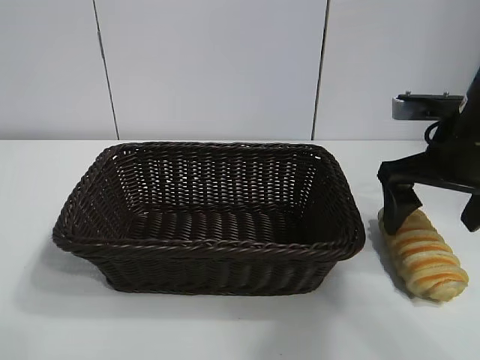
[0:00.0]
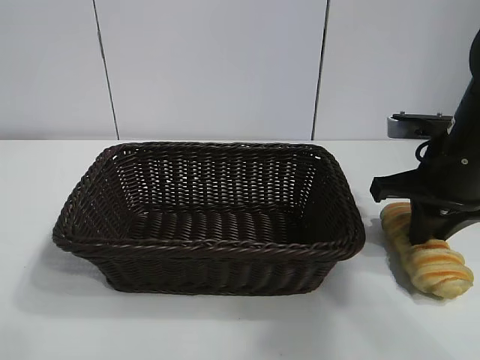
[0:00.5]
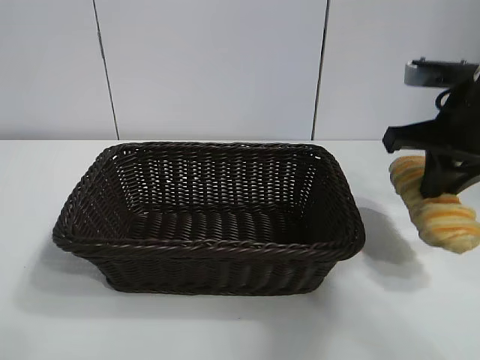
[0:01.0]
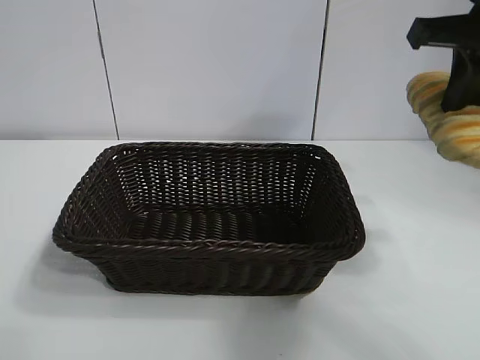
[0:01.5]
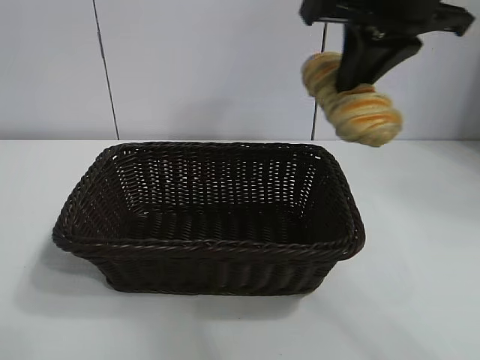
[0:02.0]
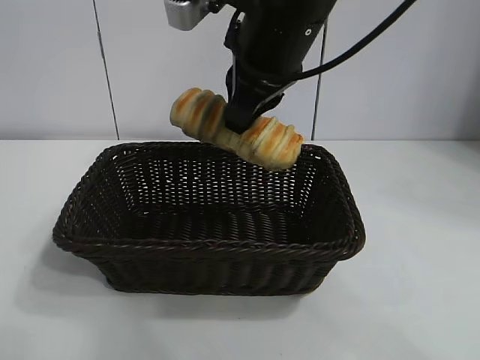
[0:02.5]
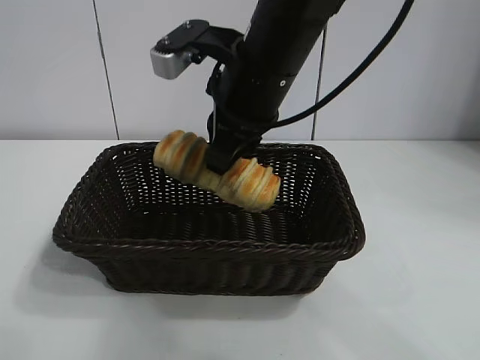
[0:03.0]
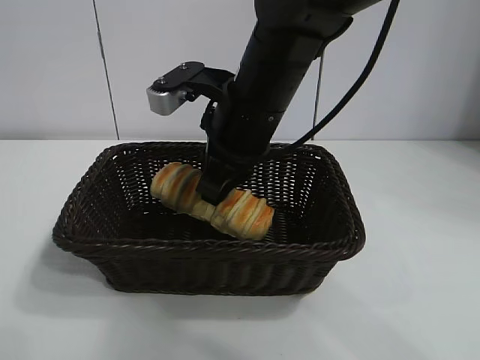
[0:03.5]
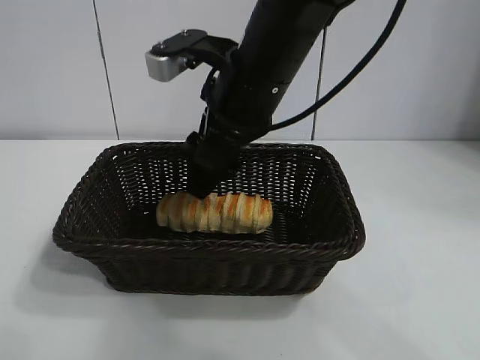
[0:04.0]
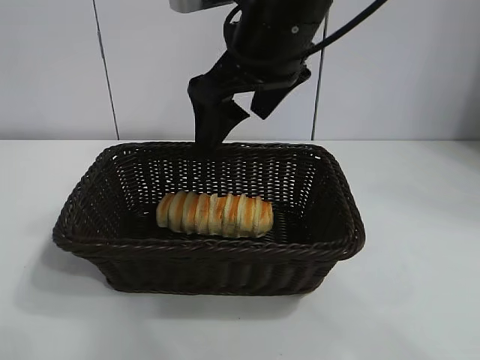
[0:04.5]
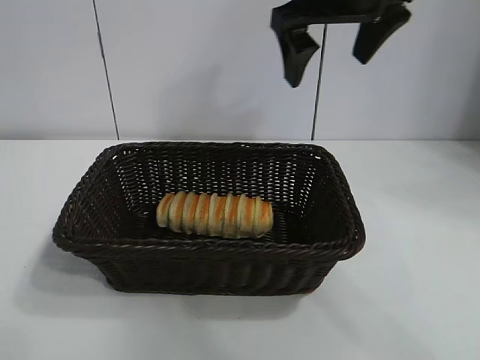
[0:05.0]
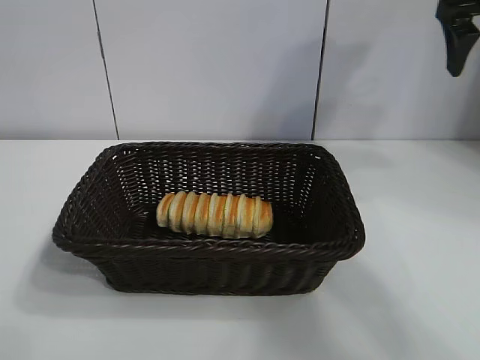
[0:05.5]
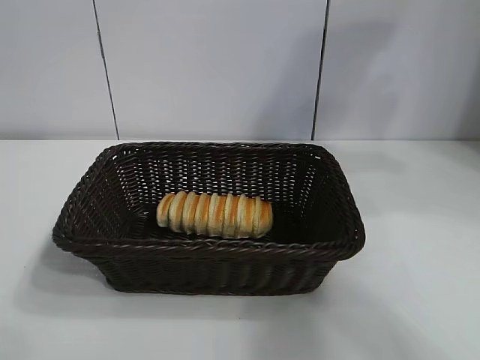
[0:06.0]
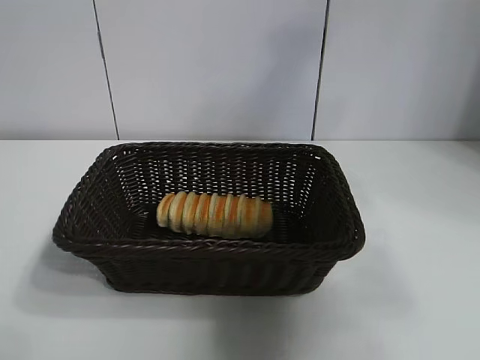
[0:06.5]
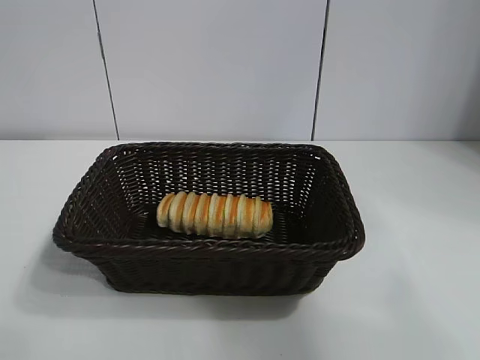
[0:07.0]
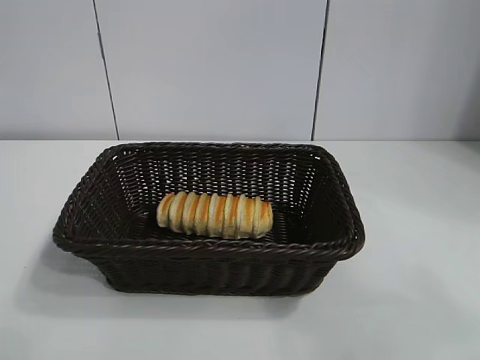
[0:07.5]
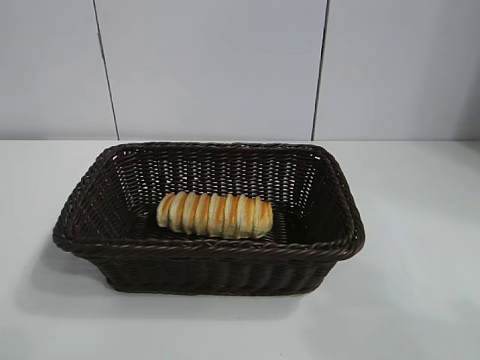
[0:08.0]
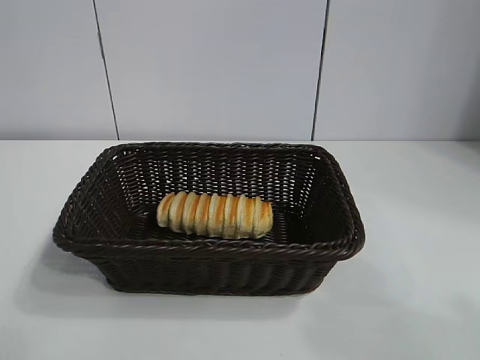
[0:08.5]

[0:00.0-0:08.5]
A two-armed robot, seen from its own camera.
Task of the whole recording: pick up the long bread and put it into the basket.
Step, 0:01.0 to 0:04.0: Place the long bread in the basket with right gripper.
